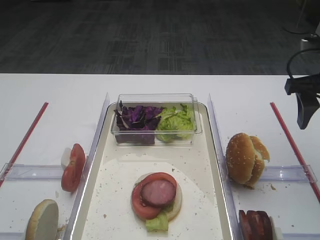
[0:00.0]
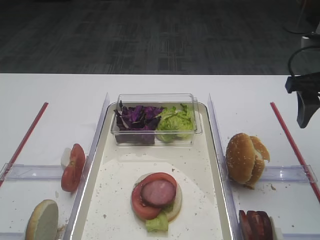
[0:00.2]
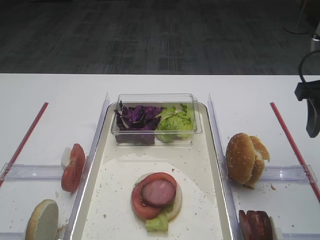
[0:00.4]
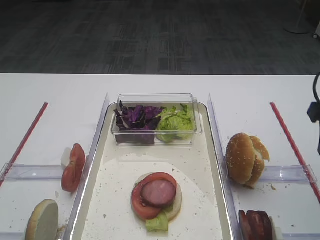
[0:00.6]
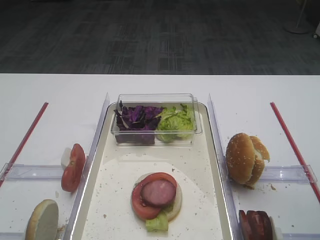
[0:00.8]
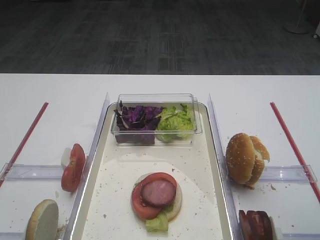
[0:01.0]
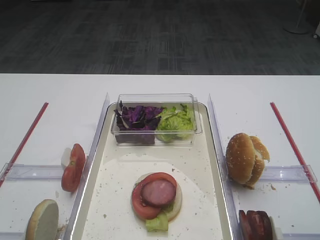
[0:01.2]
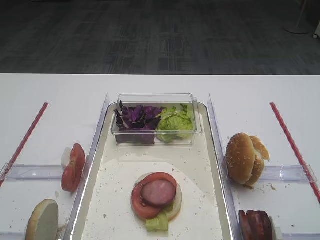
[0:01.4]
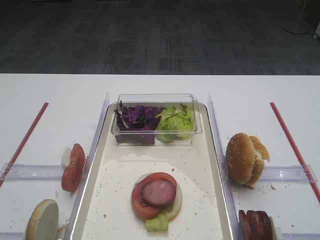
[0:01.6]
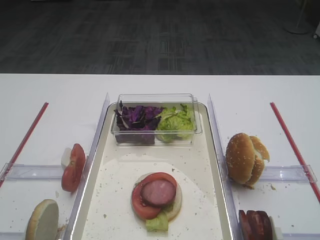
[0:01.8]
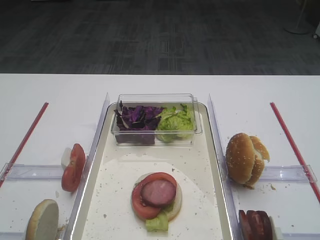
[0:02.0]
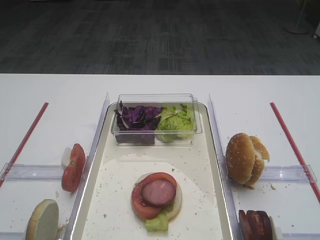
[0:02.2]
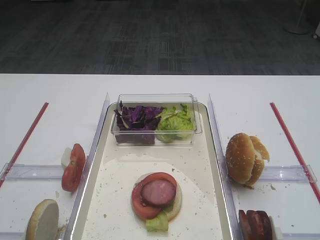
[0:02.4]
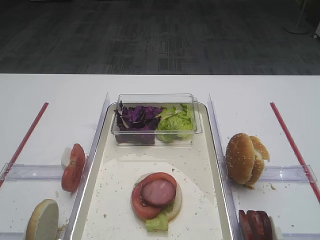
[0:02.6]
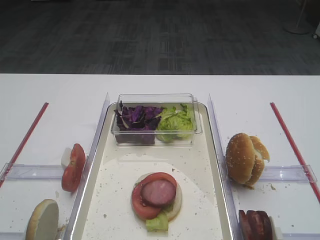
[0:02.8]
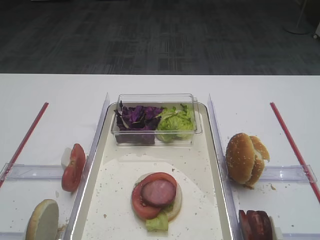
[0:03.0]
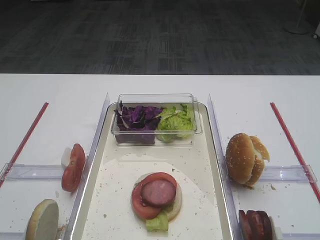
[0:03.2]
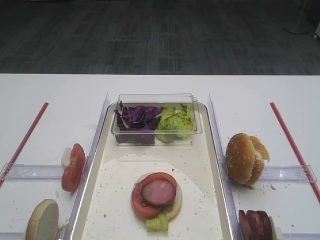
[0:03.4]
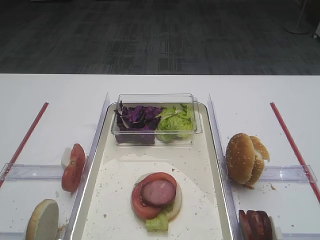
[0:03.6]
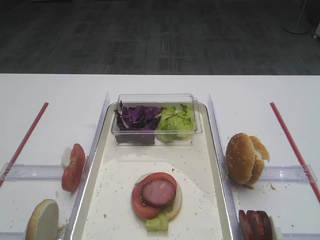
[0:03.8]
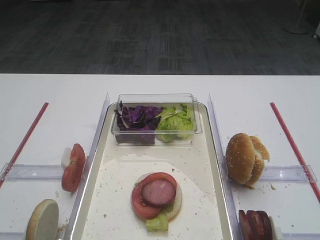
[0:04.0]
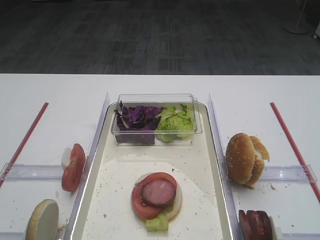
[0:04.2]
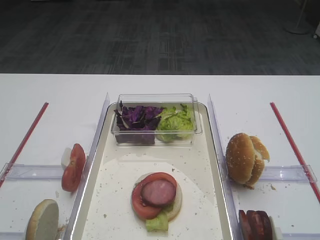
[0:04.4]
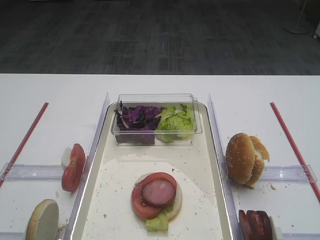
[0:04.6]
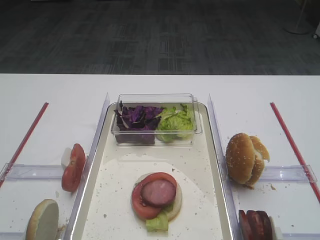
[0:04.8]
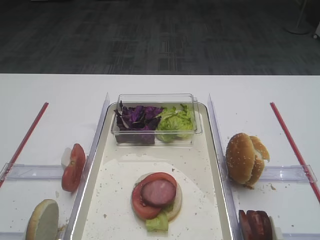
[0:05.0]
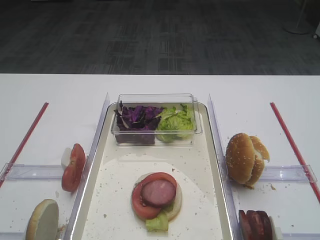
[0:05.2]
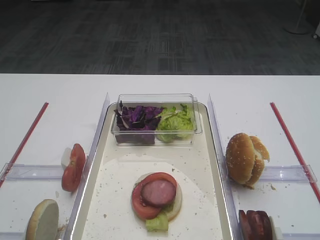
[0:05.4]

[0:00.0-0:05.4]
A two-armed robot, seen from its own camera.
0:00.0 to 0:01.4: The right gripper heads backward, covering about 20 cm.
0:02.8 to 0:05.4: Both grippers stay put.

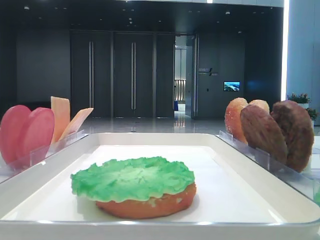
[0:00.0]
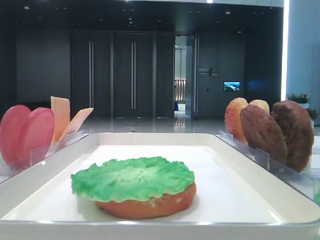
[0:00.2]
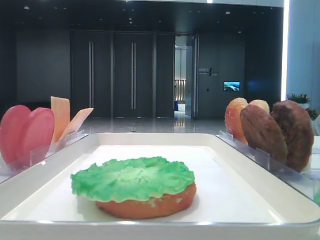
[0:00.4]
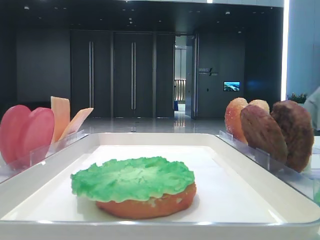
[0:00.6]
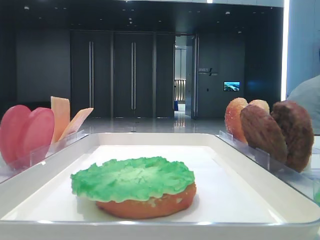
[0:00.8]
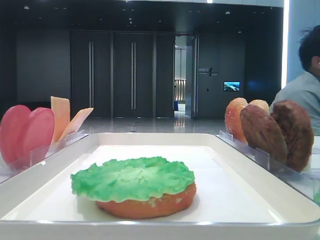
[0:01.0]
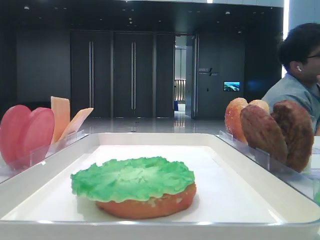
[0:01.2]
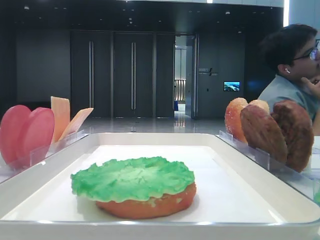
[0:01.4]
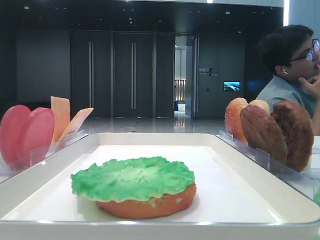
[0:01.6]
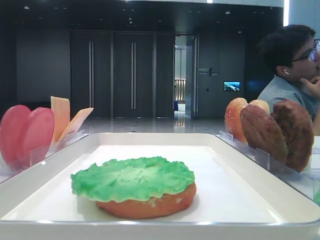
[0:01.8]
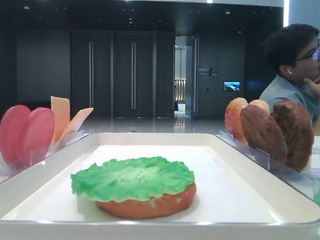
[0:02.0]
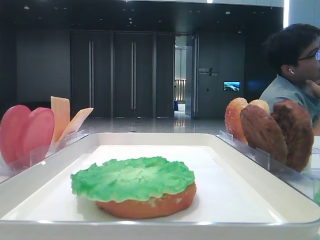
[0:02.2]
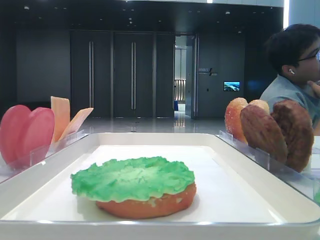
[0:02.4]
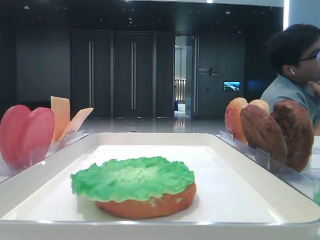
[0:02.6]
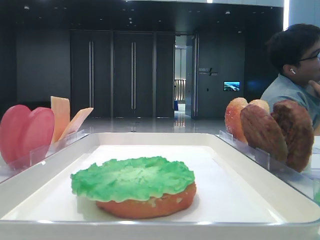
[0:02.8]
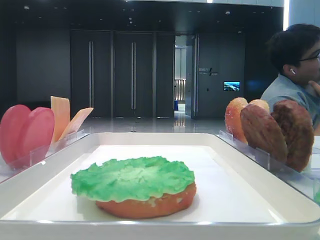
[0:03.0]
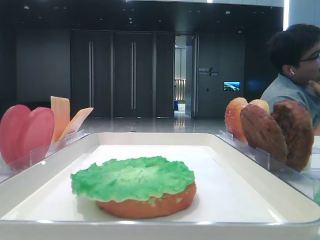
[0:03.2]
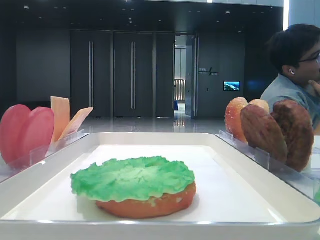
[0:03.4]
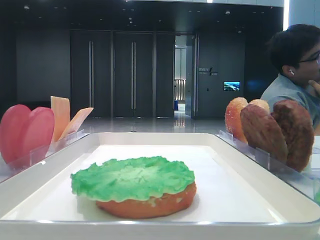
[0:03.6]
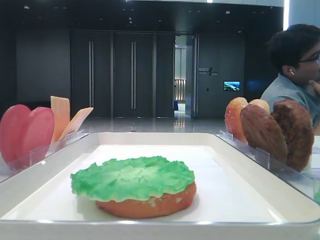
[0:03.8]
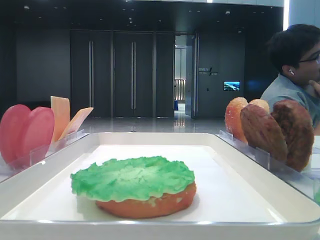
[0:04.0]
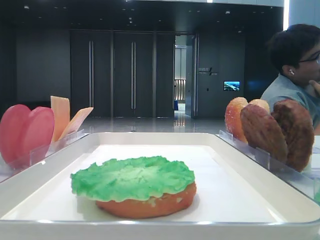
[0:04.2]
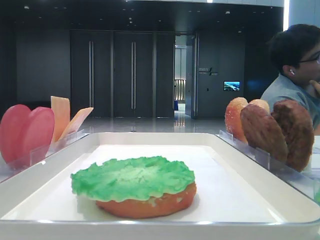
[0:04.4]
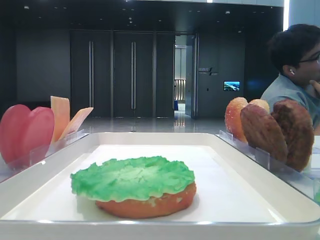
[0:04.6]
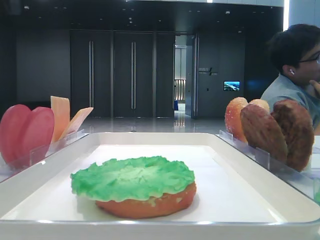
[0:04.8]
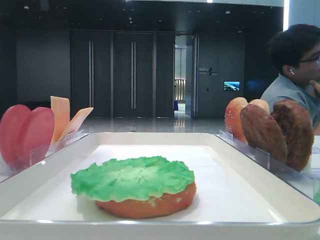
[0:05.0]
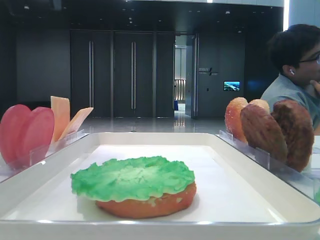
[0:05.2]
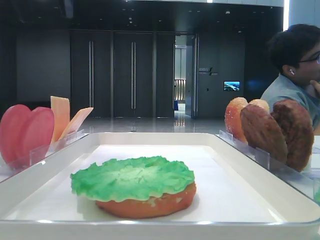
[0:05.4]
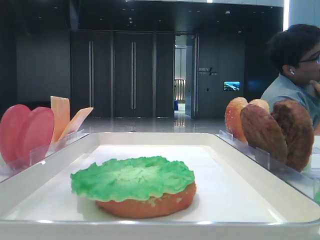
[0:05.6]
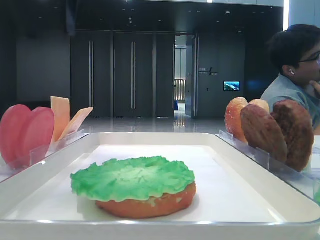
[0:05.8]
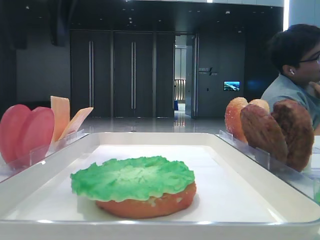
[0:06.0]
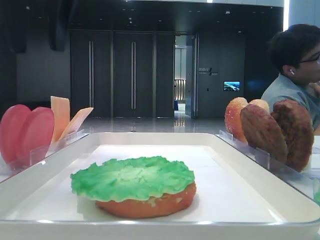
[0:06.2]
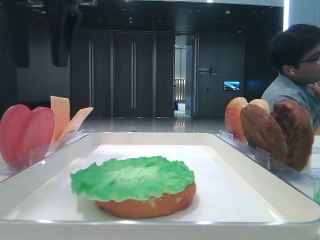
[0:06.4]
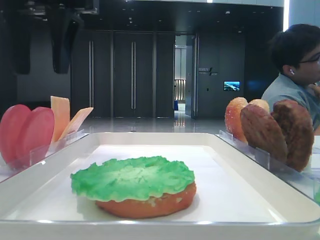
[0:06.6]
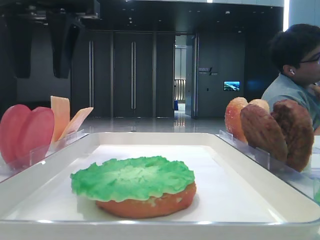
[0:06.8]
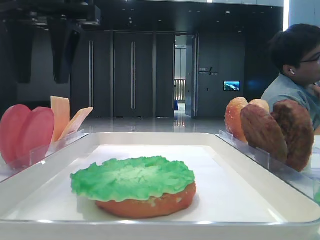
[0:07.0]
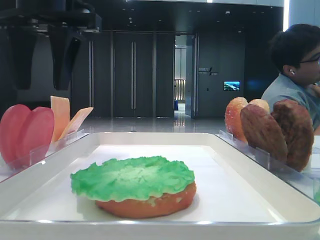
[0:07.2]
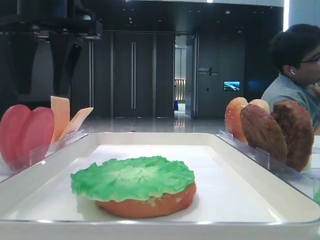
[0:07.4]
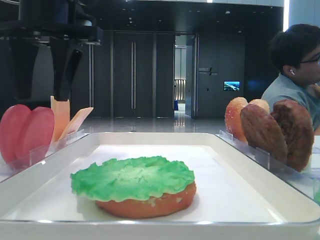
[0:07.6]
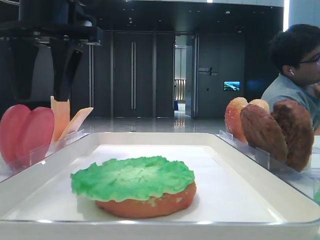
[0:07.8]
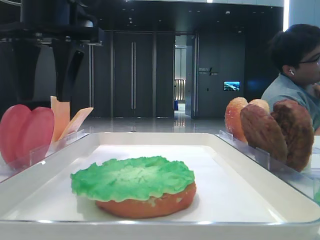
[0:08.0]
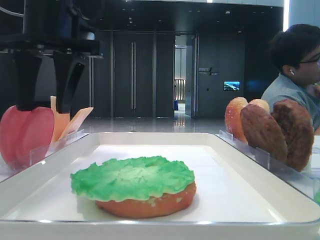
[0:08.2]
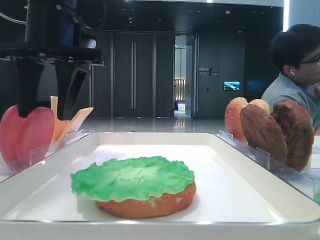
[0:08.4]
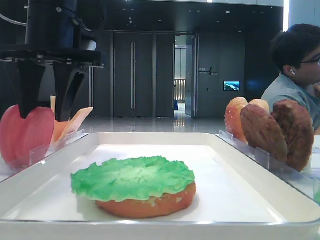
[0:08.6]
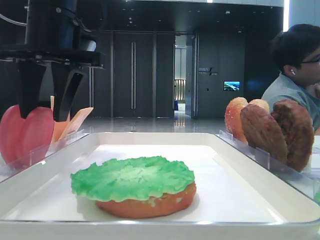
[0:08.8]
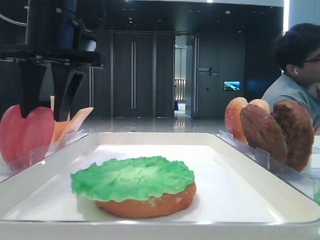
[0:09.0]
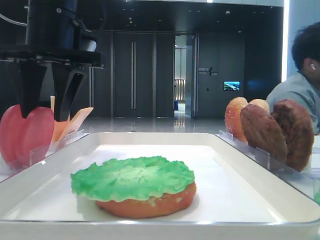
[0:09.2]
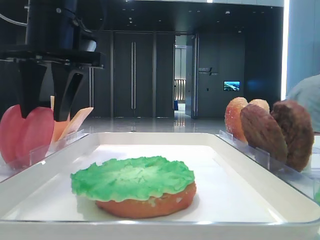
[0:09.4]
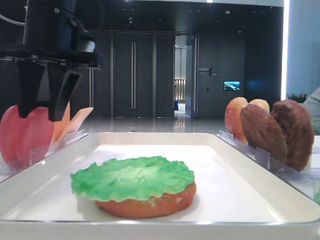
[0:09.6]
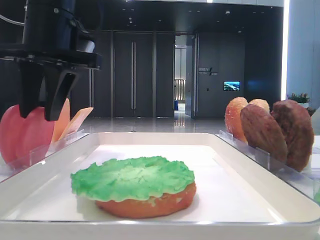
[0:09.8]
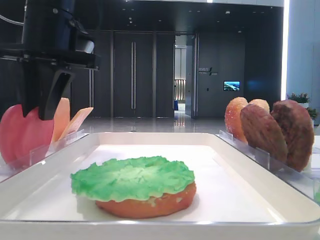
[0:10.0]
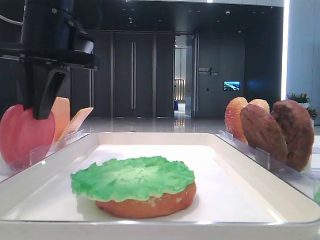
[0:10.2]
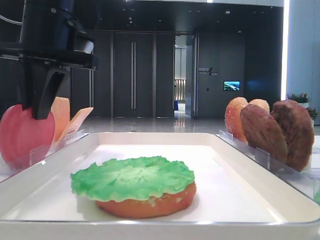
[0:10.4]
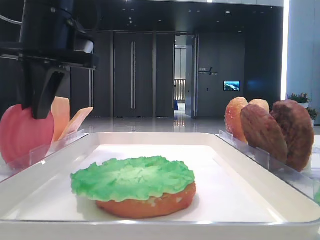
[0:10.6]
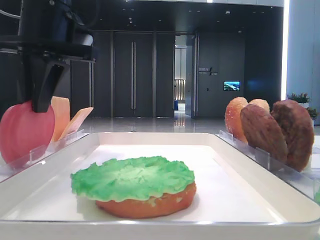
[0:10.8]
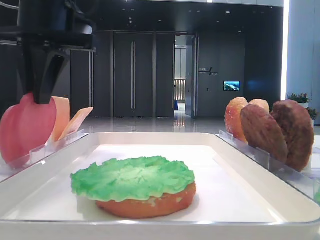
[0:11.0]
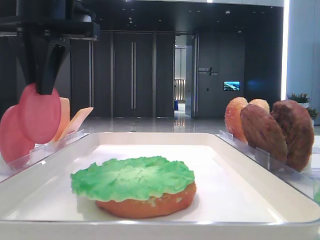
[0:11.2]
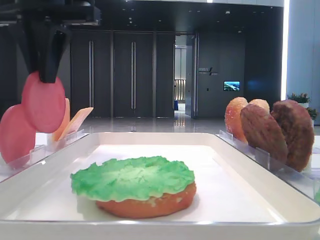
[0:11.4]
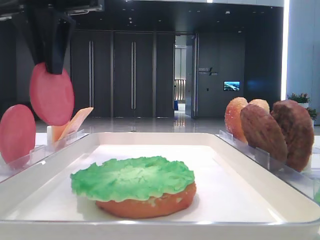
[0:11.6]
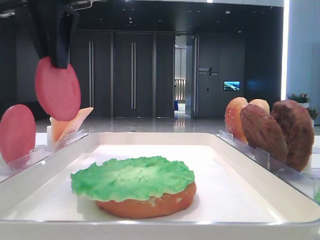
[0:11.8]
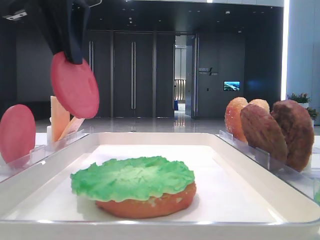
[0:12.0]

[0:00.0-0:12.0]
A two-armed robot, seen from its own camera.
Step, 0:00.0 to 0:10.4: Pick up the tomato slice with the left hand.
0:04.4 to 0:06.0: The left gripper heads to the right, covering about 15 cm.
0:06.0 to 0:07.6: The left gripper heads downward, covering approximately 5 cm.
0:07.6 to 0:09.0: The grippers stay close to where they were, moving slightly.
0:09.0 to 0:10.4: The left gripper closes up.
0:10.4 to 0:12.0: The left gripper shifts some 5 cm upward.

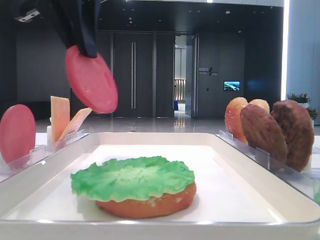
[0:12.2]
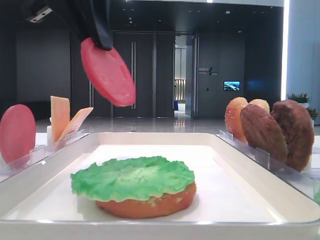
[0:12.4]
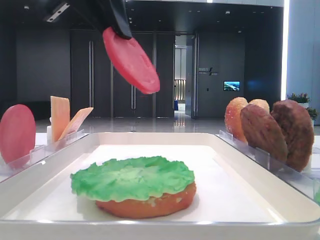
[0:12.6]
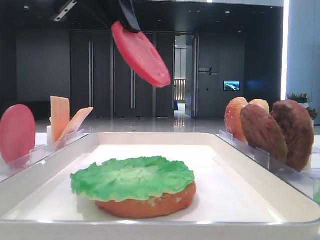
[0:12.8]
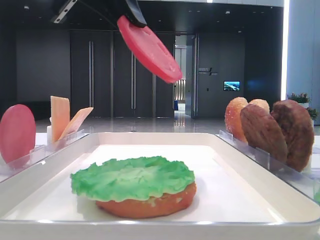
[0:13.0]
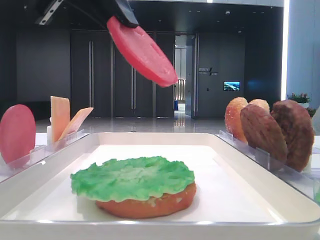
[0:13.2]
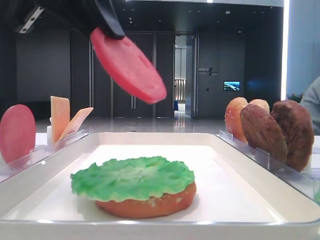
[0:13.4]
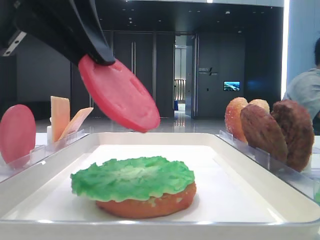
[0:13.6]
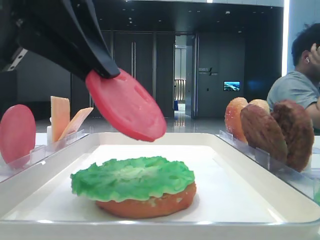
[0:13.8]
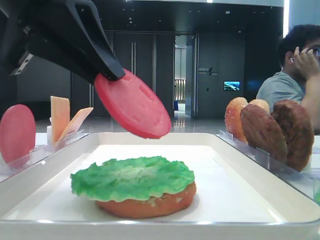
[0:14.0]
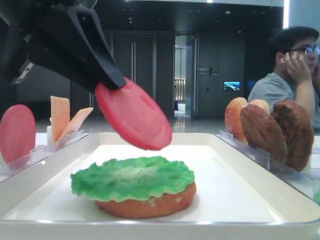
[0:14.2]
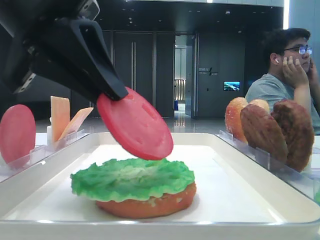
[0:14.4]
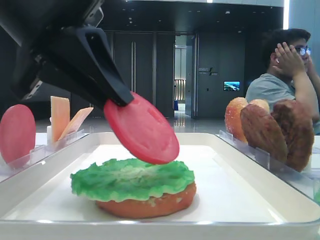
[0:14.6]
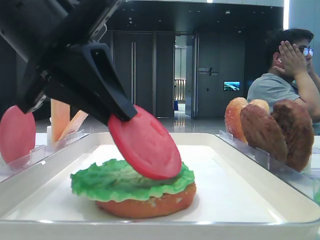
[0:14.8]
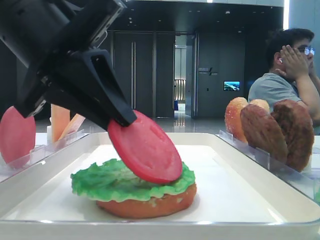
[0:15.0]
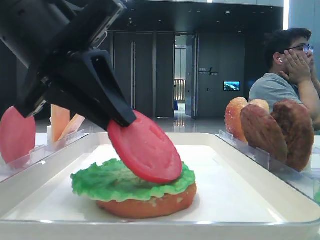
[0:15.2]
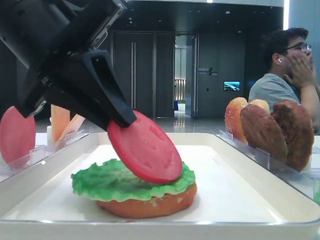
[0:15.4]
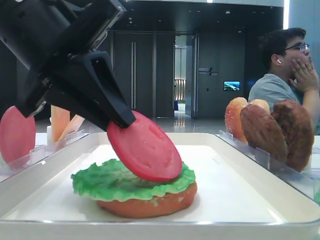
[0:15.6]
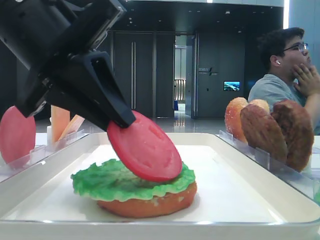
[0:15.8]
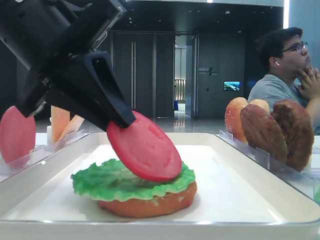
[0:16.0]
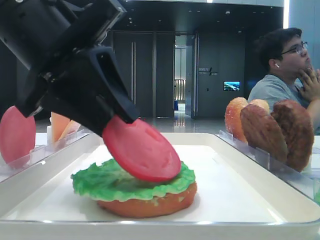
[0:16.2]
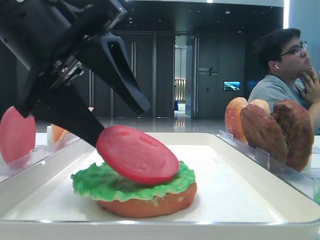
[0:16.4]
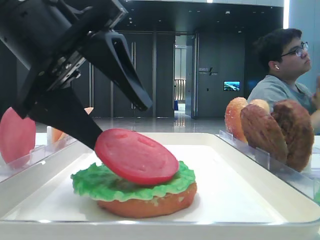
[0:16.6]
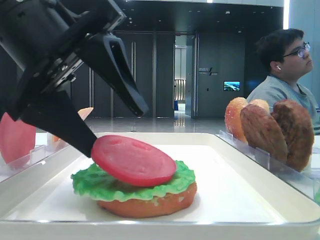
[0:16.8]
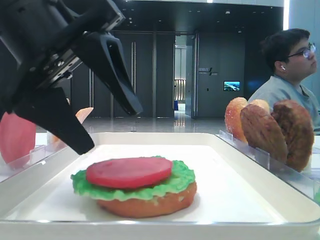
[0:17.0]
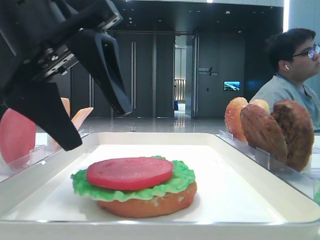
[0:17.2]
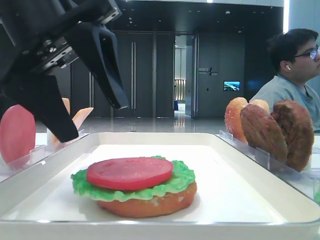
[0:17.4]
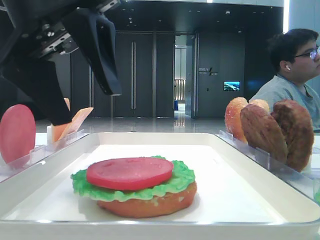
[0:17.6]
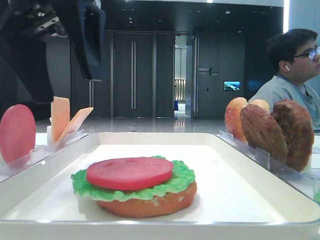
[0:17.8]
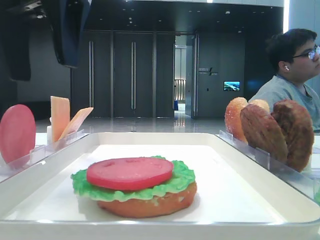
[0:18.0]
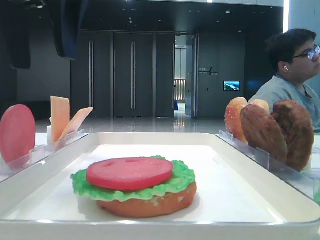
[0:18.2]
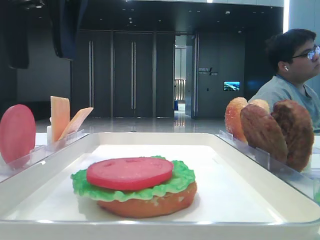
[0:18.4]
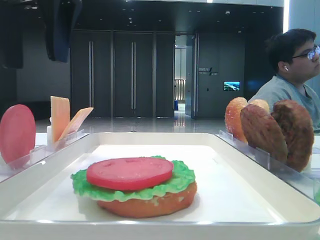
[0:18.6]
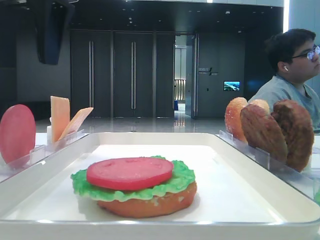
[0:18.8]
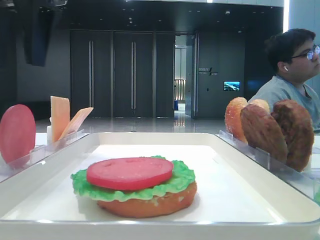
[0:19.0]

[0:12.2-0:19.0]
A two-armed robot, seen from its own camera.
Step, 0:12.2 to 0:17.0: Place the tomato slice on the lettuce leaf with the left hand.
0:12.2 to 0:13.6: The left gripper shifts some 10 cm backward and downward.
0:13.6 to 0:15.0: The left gripper is displaced downward by about 5 cm.
0:15.0 to 0:16.2: The left gripper opens up.
0:16.2 to 0:17.6: The left gripper opens.
0:17.6 to 0:19.0: The left gripper travels upward and to the left by roughly 10 cm.
